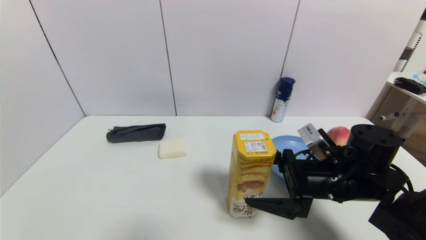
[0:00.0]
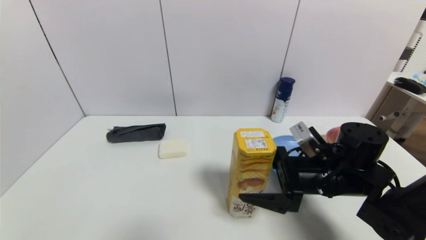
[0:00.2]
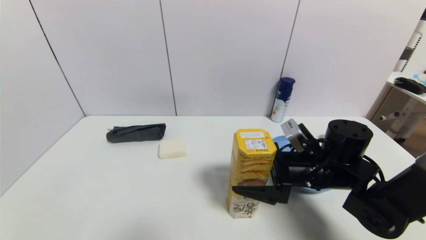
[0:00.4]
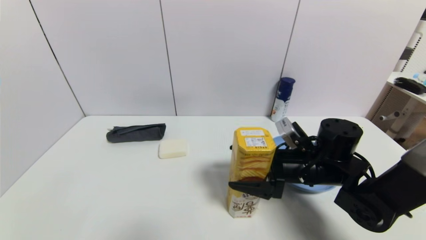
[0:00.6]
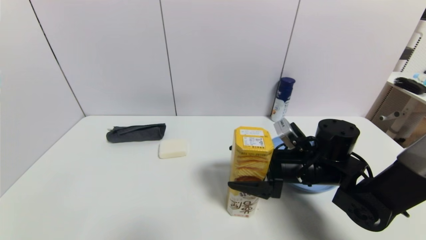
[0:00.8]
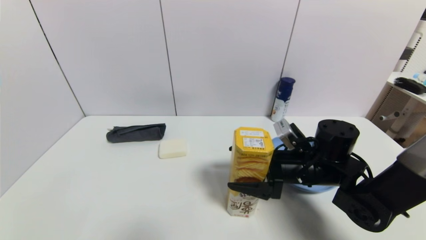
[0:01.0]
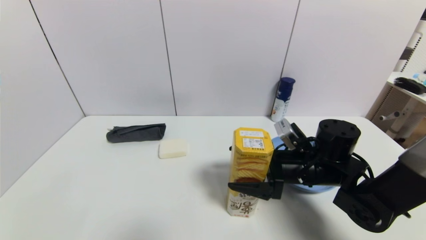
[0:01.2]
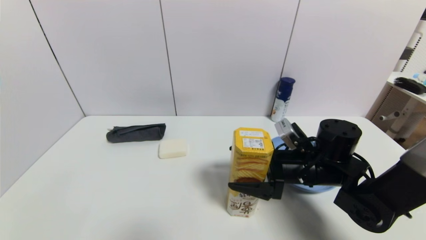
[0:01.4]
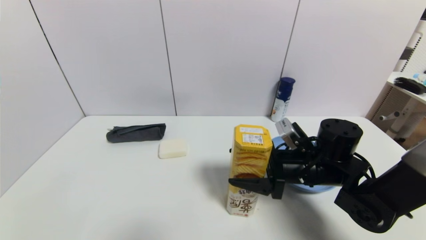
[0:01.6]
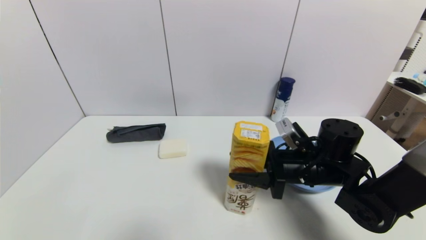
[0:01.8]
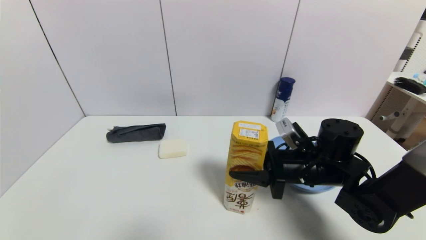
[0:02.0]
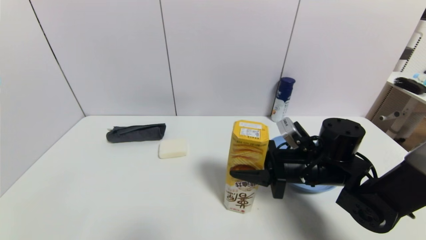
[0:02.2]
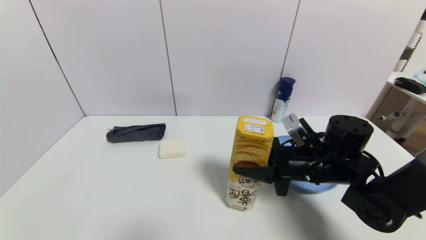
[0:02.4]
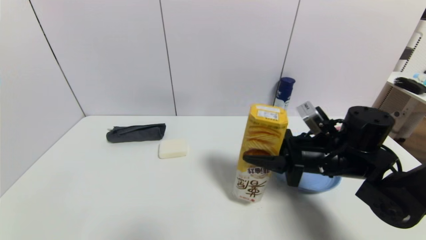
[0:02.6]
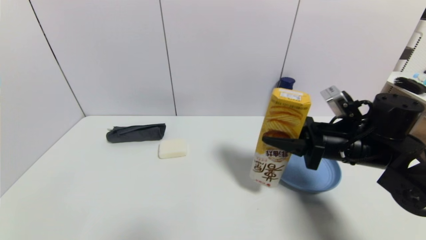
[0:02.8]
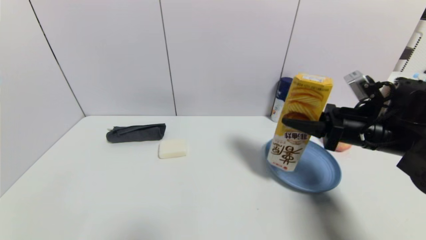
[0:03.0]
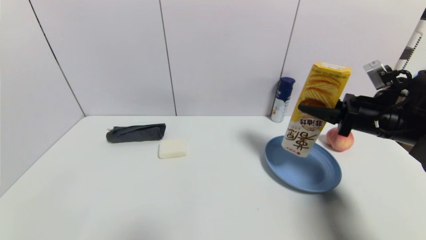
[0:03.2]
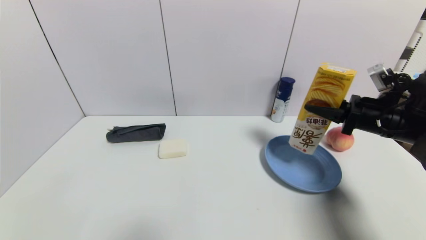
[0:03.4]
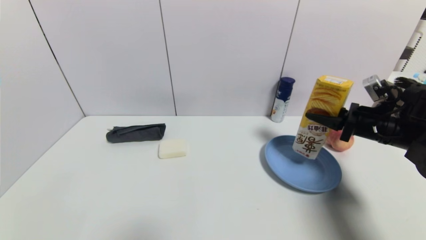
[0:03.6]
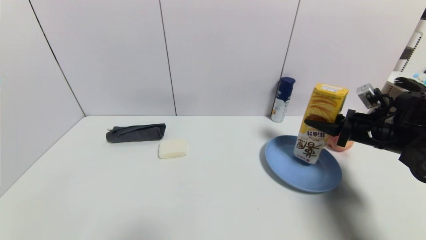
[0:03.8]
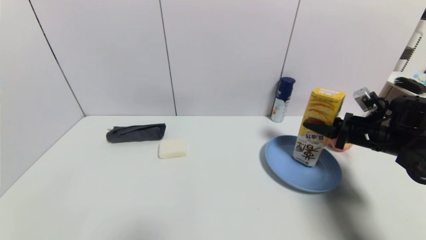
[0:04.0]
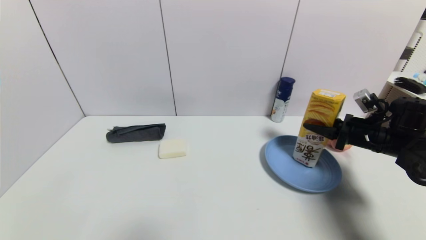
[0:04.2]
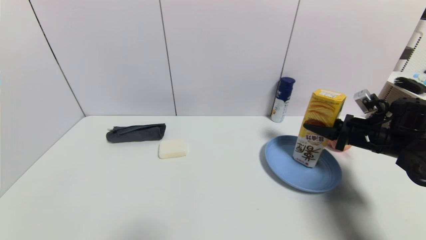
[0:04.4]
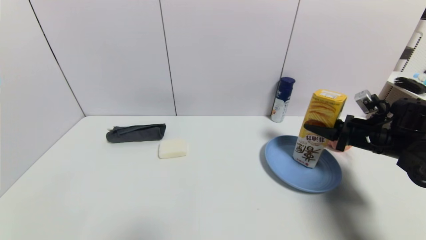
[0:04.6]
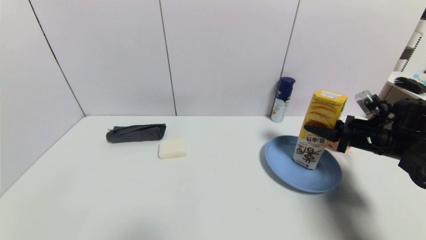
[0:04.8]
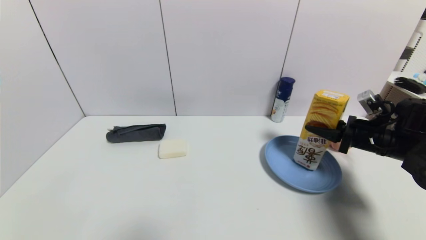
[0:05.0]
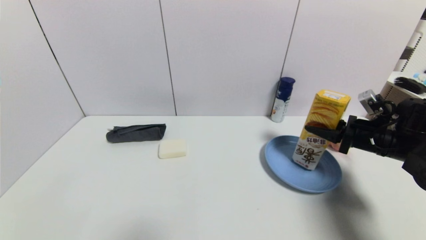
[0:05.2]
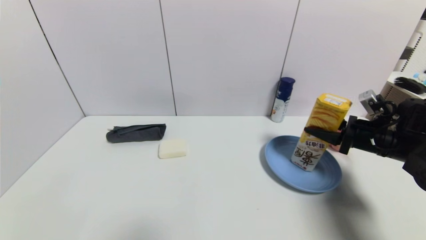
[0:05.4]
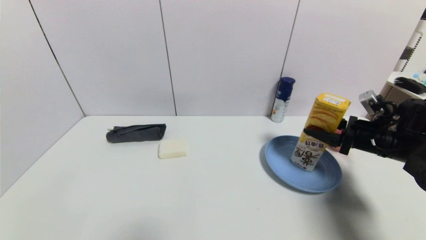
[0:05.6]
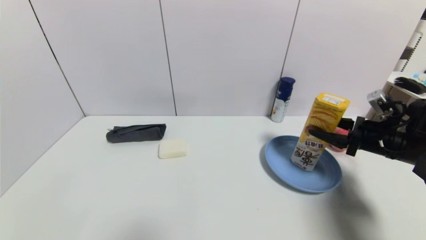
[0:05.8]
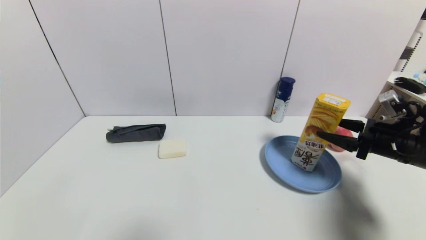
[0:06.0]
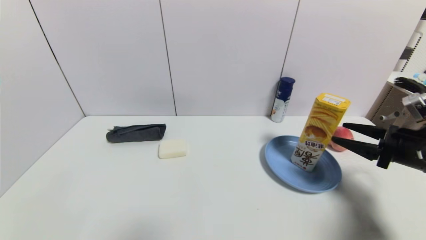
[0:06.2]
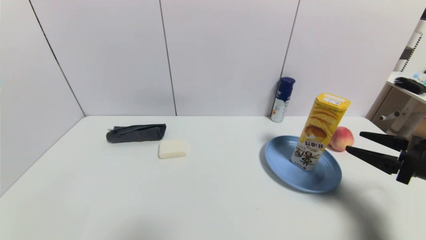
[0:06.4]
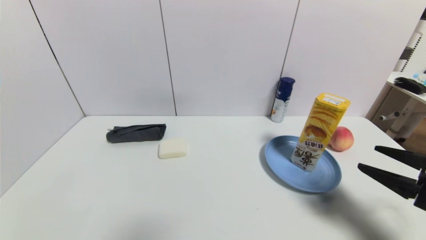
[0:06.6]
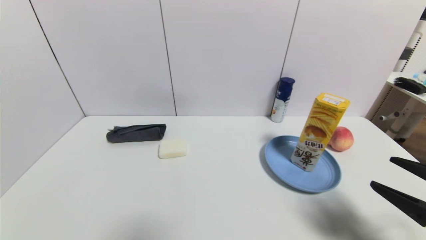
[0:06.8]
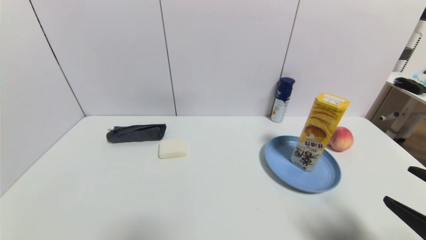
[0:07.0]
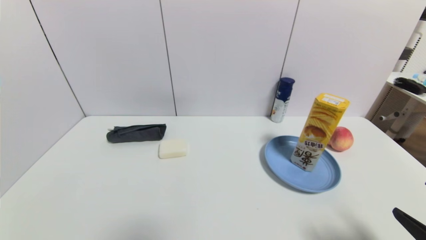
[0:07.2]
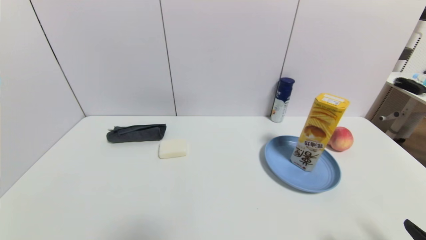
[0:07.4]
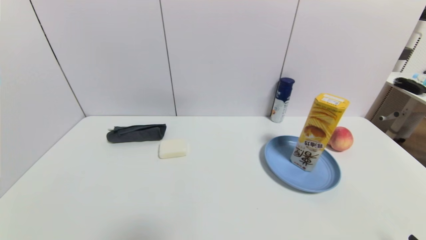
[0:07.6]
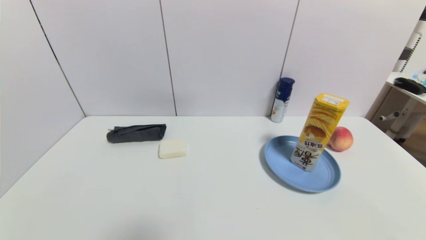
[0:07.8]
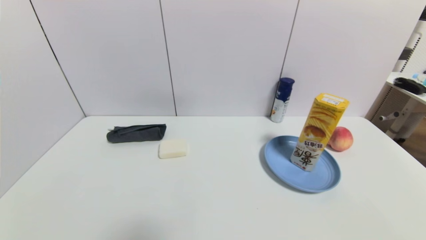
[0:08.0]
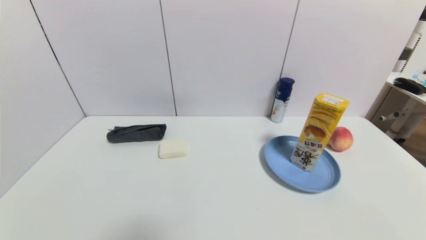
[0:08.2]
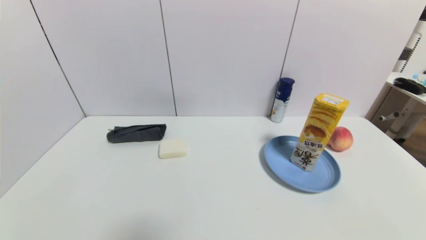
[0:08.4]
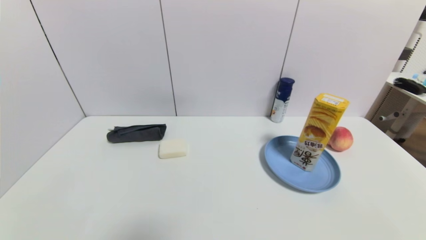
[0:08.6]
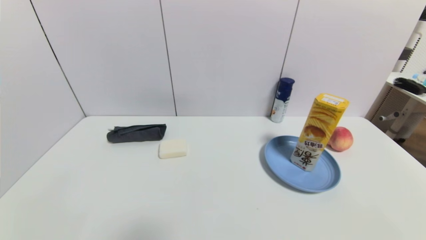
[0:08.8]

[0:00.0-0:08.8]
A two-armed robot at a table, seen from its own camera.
Task of the whole recording: use a gripper to pick the target object and place on the blue plate.
Step, 0:00.0 to 0:02.0: Grasp the potato chips with the right gripper.
Step, 0:02.2 to 0:06.8: Place the potato chips on the blue plate with the right gripper.
0:00.0 to 0:01.4: There are only small adjustments of the grippers.
0:01.4 to 0:03.0: The right gripper moves to the right and upward, about 15 cm, and closes.
0:03.0 to 0:04.4: The right gripper goes some 10 cm to the right and downward.
0:04.4 to 0:05.8: The right gripper opens up.
0:05.8 to 0:07.4: The right gripper heads backward, covering some 25 cm.
